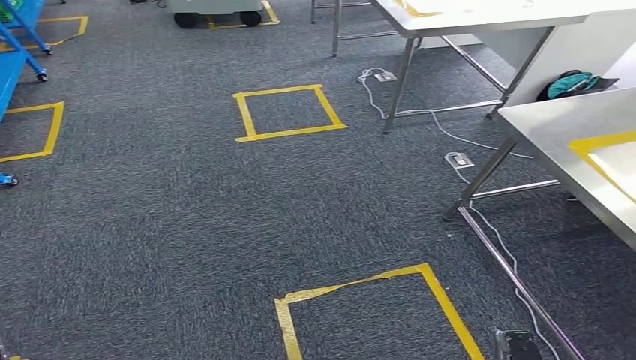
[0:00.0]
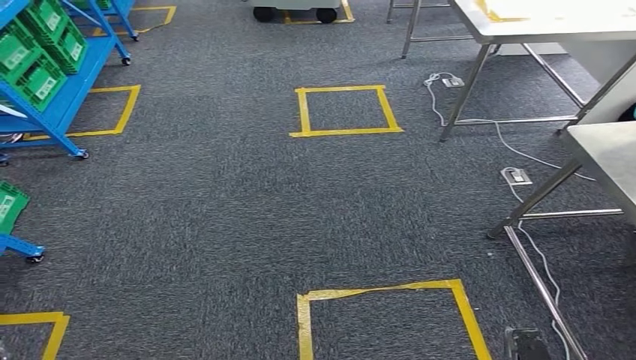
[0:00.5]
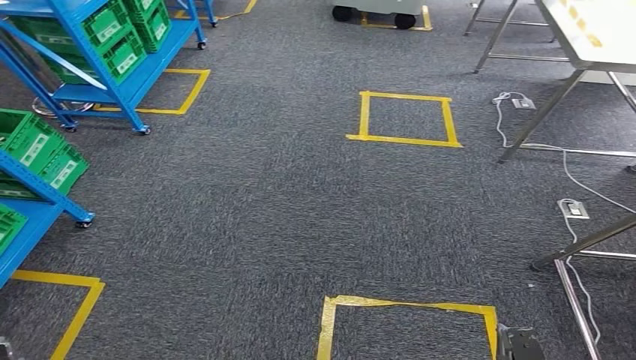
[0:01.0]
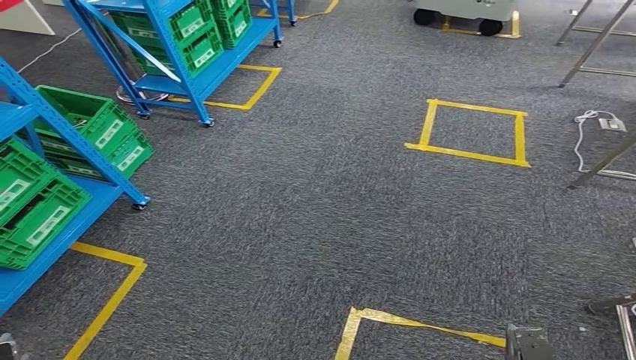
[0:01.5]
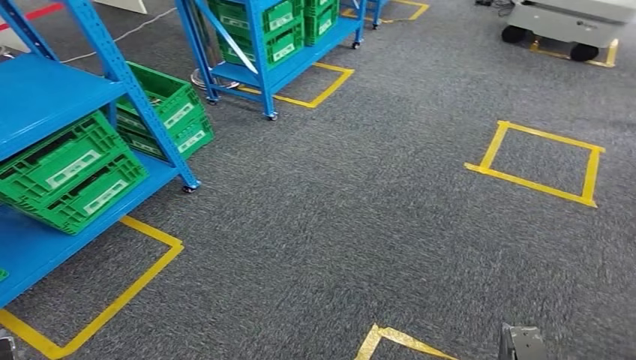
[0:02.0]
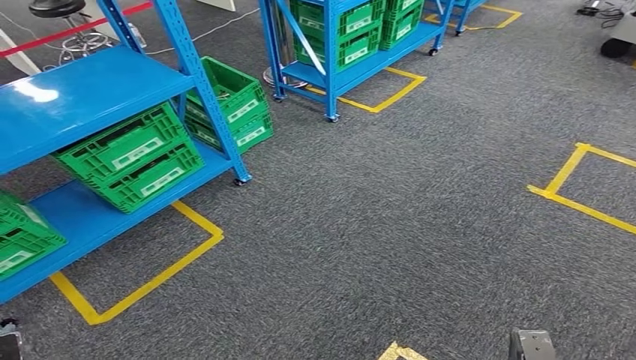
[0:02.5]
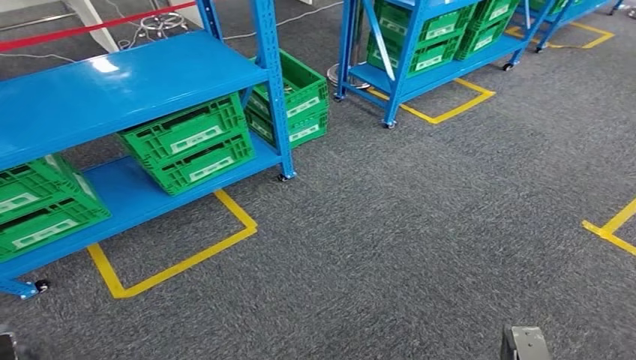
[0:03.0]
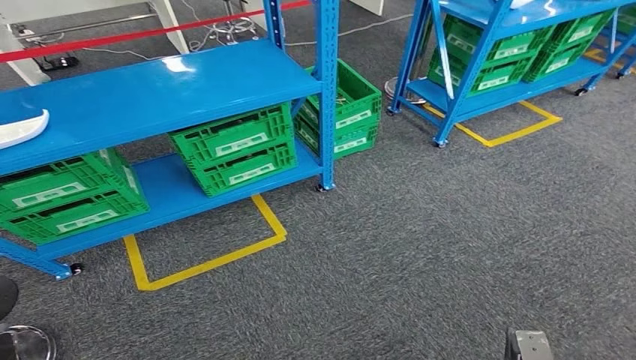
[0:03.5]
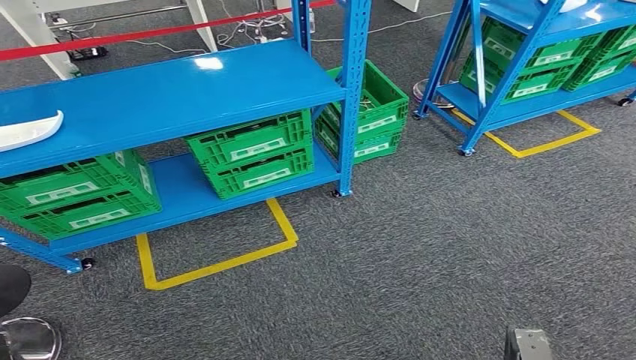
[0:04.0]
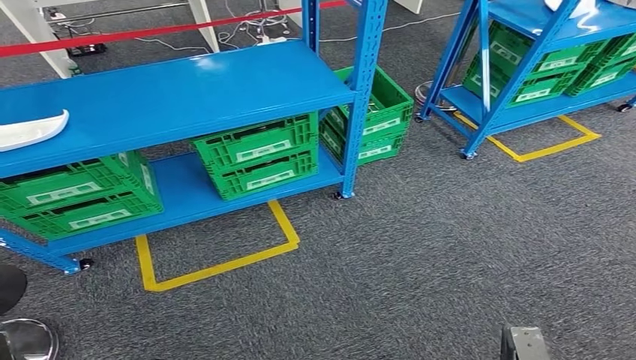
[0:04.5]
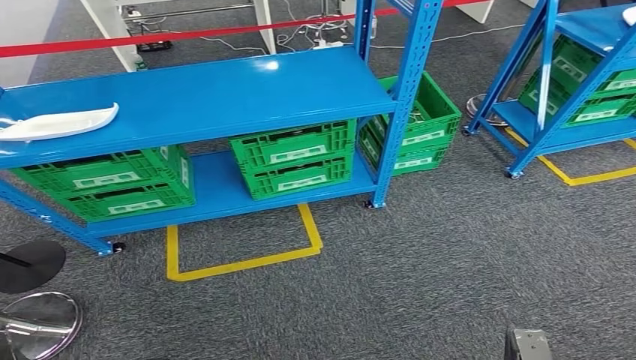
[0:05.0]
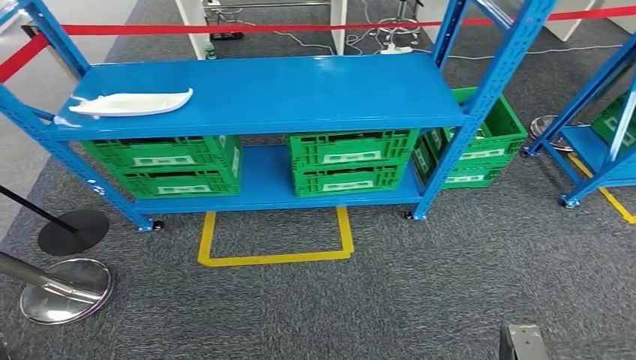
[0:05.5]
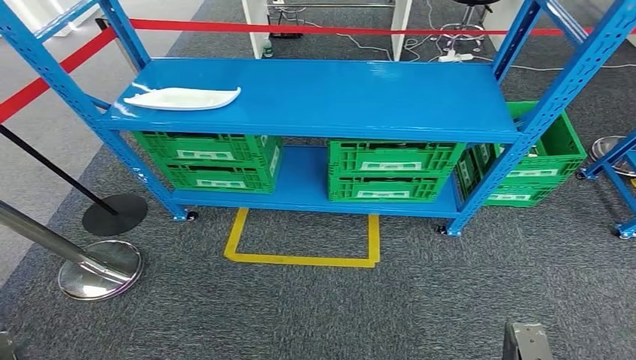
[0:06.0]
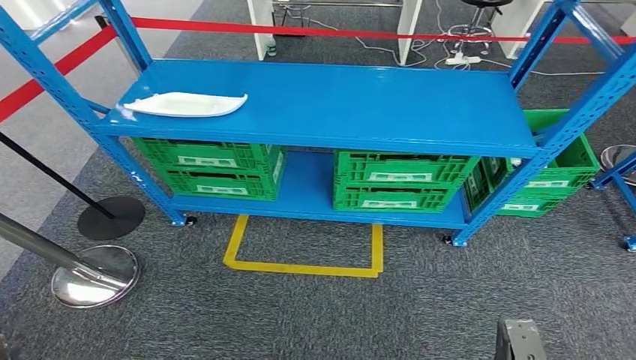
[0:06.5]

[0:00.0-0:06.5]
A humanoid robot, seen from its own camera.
Step, 0:00.0 to 0:06.5: Move to the initial position of the workbench.
